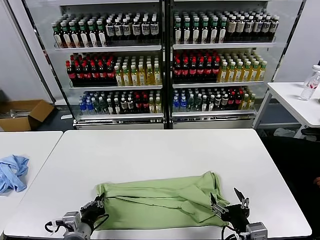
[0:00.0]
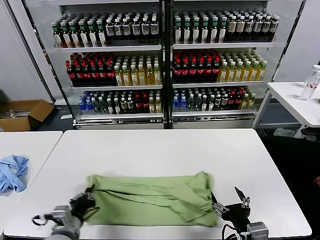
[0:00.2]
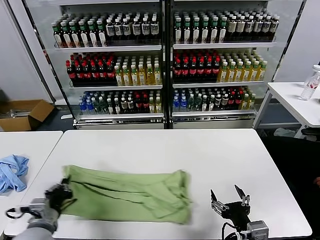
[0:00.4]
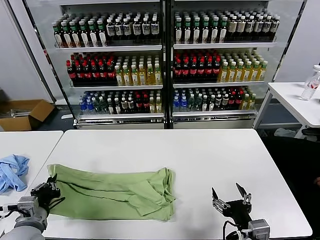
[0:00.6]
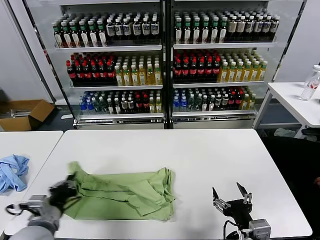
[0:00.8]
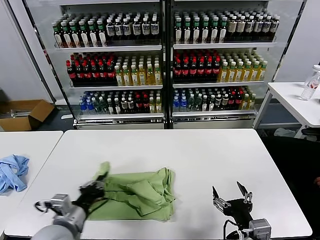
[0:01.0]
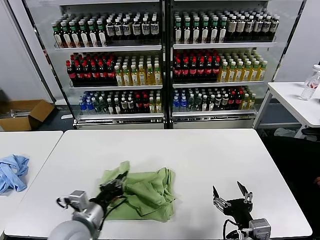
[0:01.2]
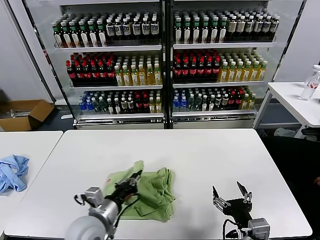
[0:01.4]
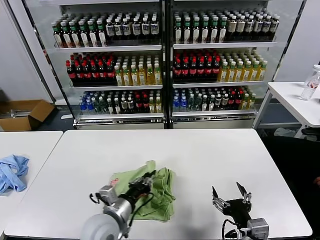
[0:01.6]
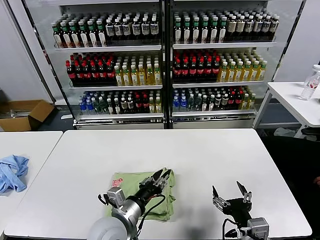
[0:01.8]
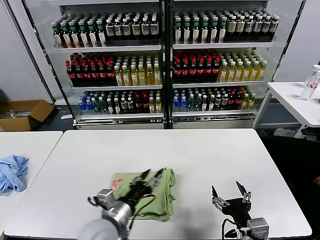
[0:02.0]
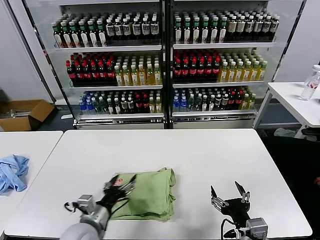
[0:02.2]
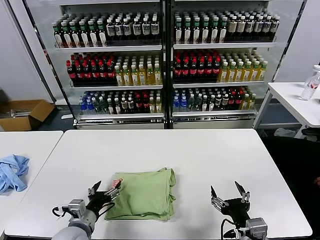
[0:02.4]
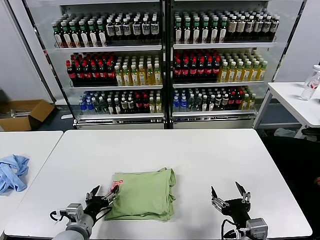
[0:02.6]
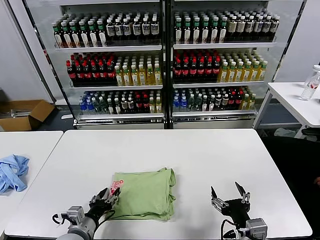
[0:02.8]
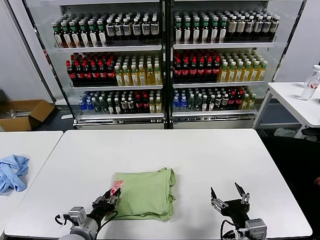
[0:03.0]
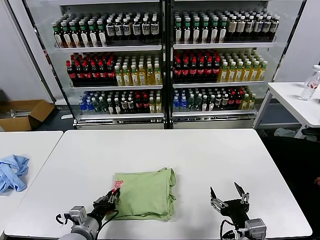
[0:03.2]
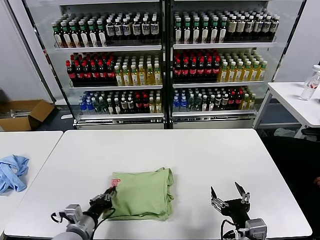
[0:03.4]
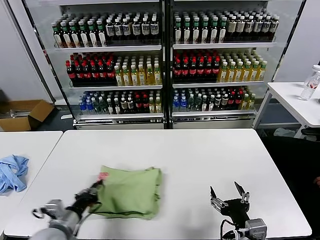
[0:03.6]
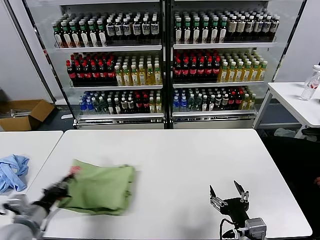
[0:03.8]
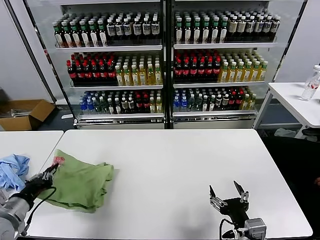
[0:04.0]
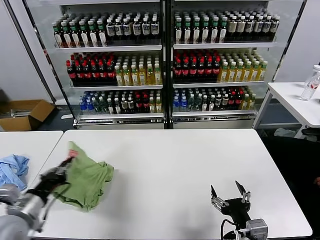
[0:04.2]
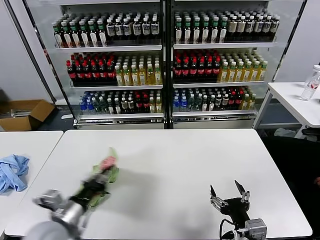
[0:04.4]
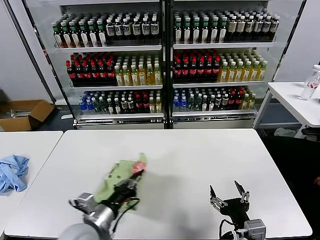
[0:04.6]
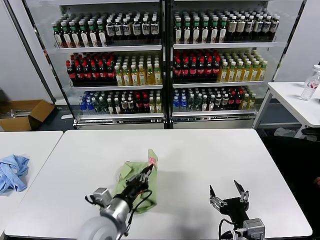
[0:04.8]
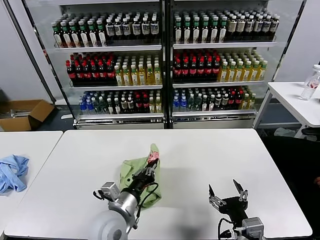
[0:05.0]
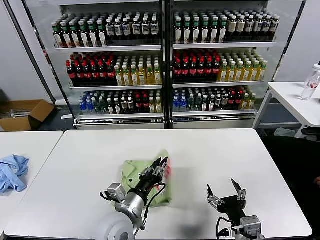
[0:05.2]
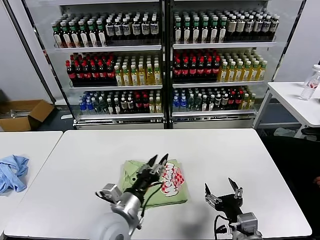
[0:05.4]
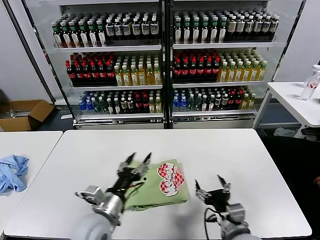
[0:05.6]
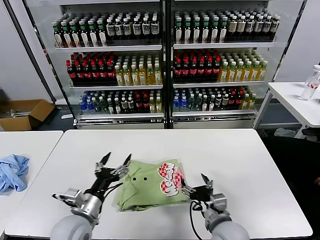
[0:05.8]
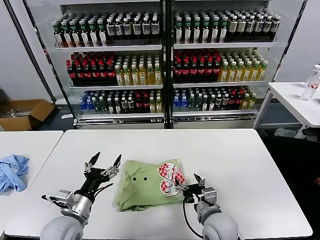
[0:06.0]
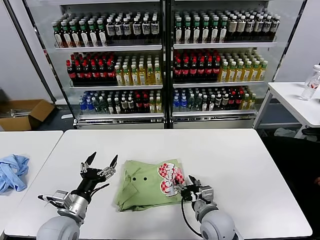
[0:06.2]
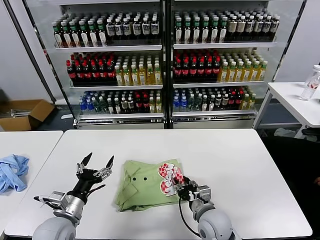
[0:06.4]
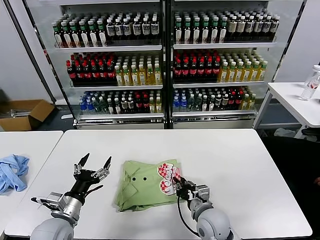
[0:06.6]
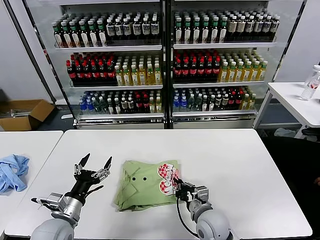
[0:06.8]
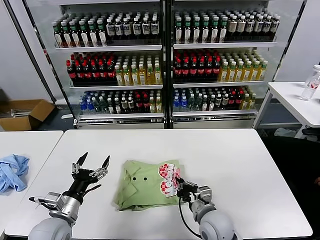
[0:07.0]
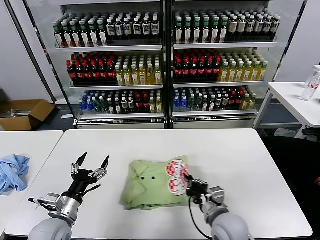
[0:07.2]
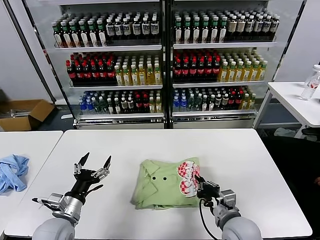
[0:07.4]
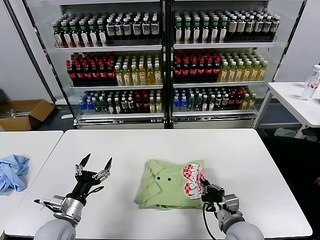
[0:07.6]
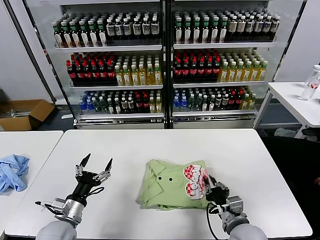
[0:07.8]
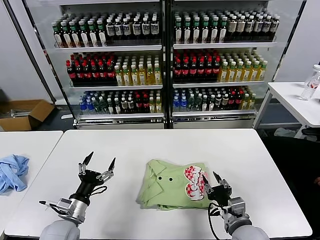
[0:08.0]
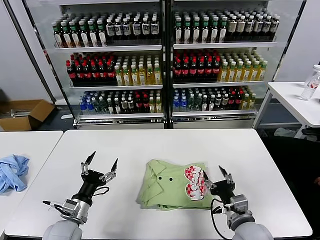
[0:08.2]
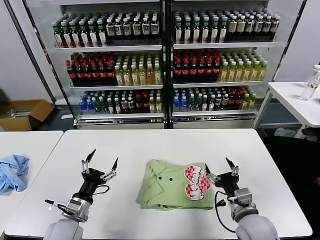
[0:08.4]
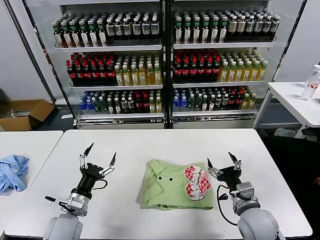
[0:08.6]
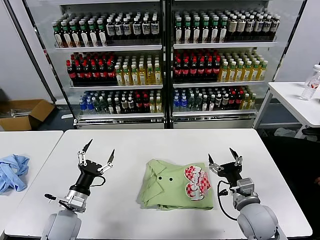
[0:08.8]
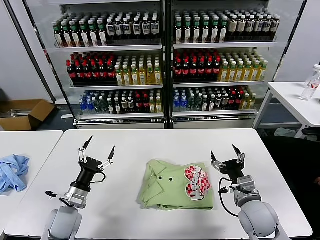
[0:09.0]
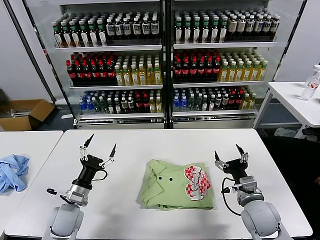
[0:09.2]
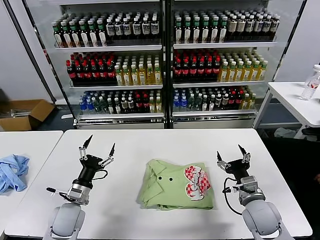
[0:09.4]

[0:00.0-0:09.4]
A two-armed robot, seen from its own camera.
Task of the whole recording: fold and organize the clothes.
Step, 0:00.0 to 0:01.6: use the left gripper to drag the left edge of the fabric to the left and folds it over the right edge.
Step, 0:02.0 to 0:05.2: Flip the folded clothes over with left gripper.
Step, 0:05.4 to 0:07.8: Drag the clothes to the center of the table.
0:00.0 to 0:01.6: The left gripper moves to the right, upward and forward, some 15 cm.
0:01.6 to 0:03.2: The left gripper goes some 10 cm to the left and downward, and opens and closes again.
0:03.2 to 0:04.8: The left gripper is displaced to the right and upward by roughly 10 cm.
0:04.8 to 0:06.2: The left gripper goes approximately 10 cm to the left, and opens up. Meanwhile the right gripper moves forward, downward and to the left, some 15 cm.
0:06.2 to 0:07.8: The right gripper shifts about 5 cm to the right, and closes its fingers.
0:07.8 to 0:09.4: The right gripper moves forward and to the right, some 10 cm, and opens its fingers. The left gripper shifts roughly 5 cm forward.
